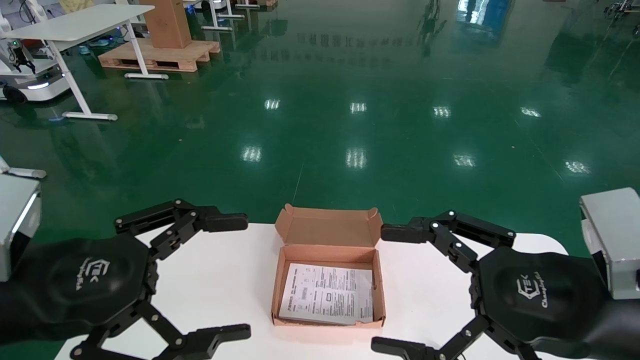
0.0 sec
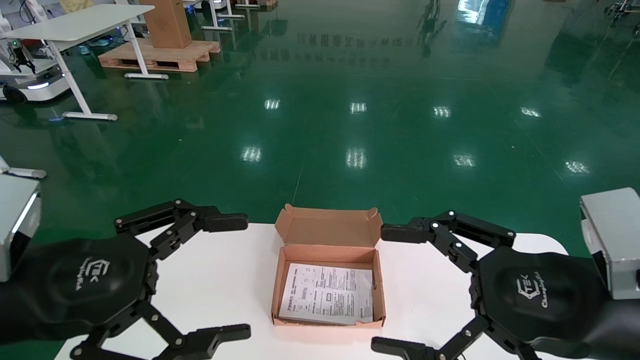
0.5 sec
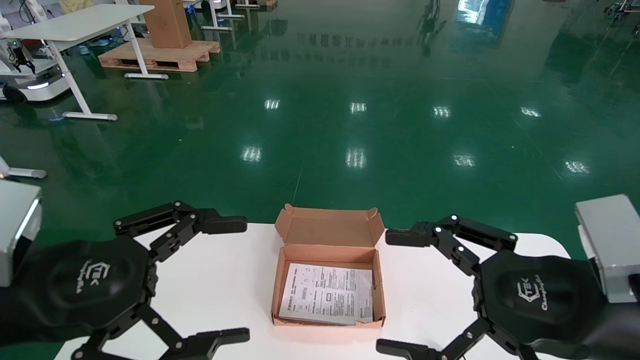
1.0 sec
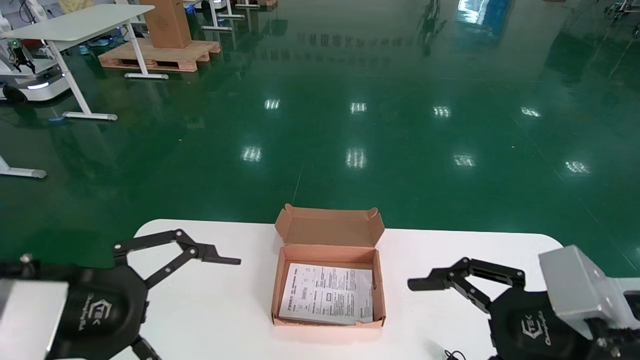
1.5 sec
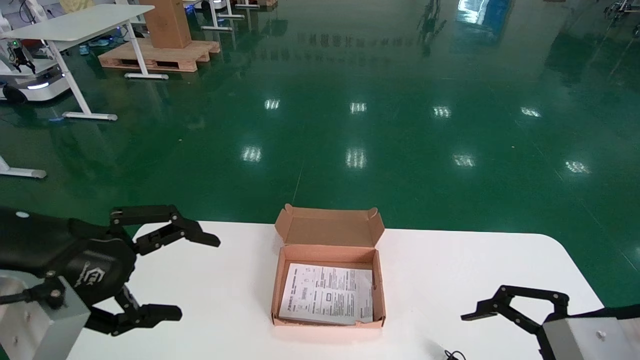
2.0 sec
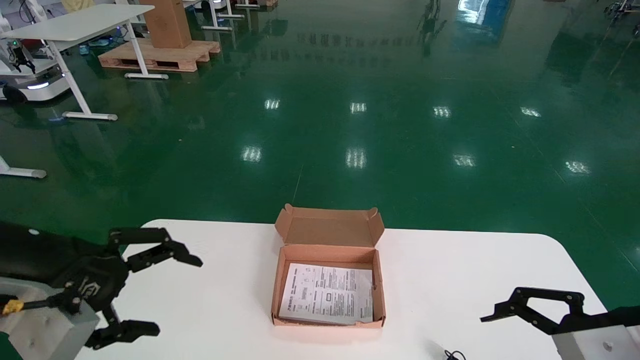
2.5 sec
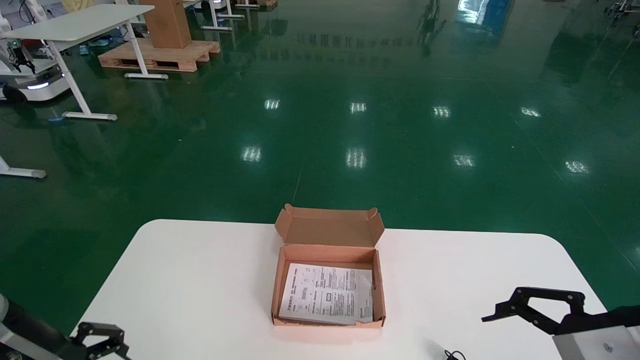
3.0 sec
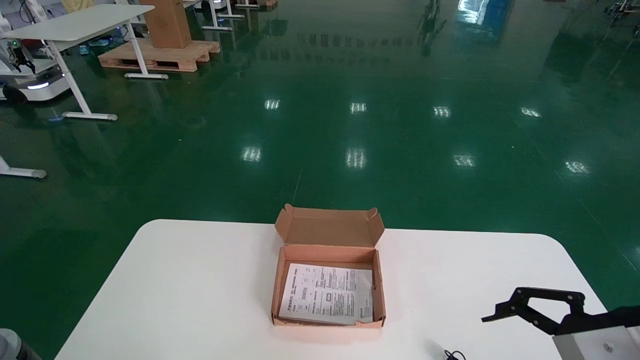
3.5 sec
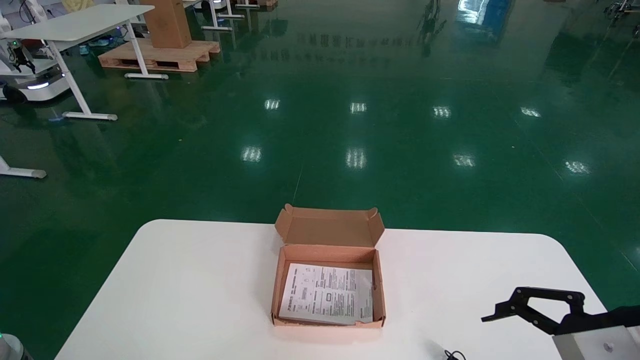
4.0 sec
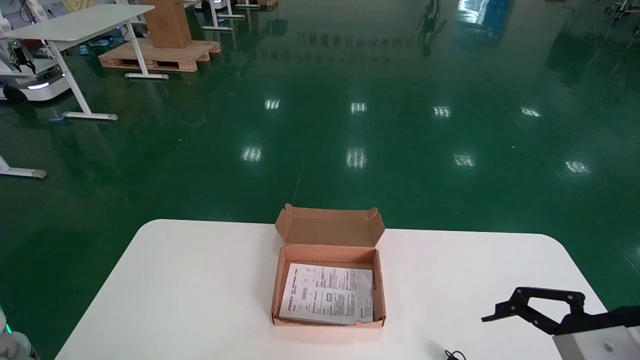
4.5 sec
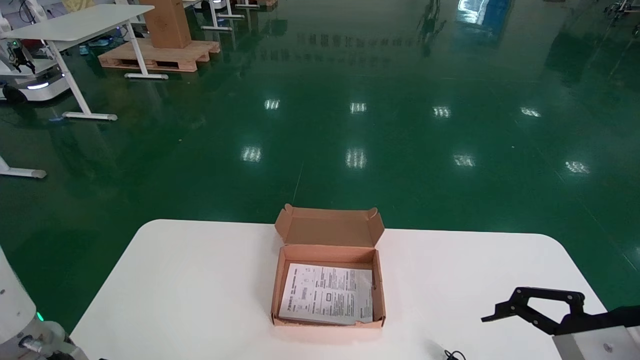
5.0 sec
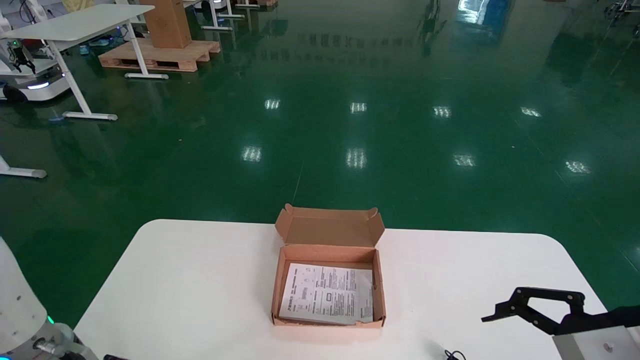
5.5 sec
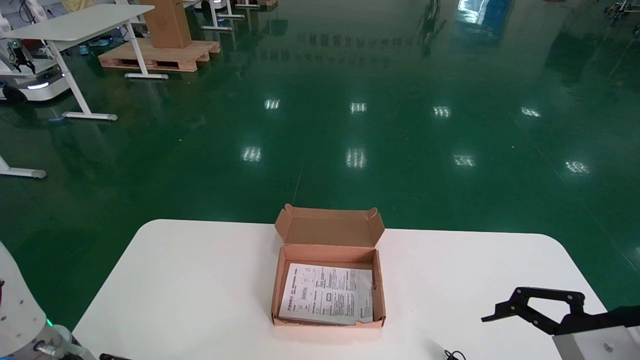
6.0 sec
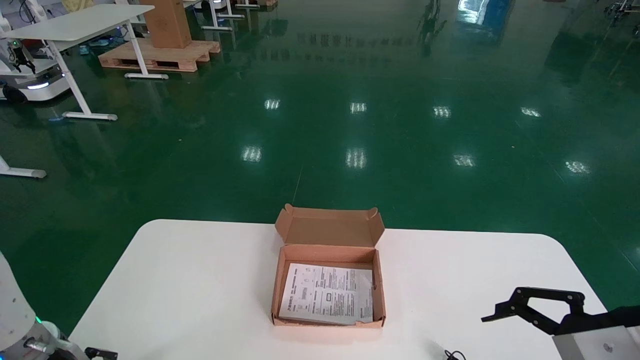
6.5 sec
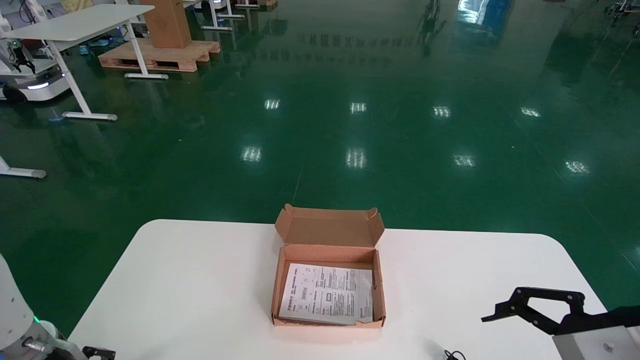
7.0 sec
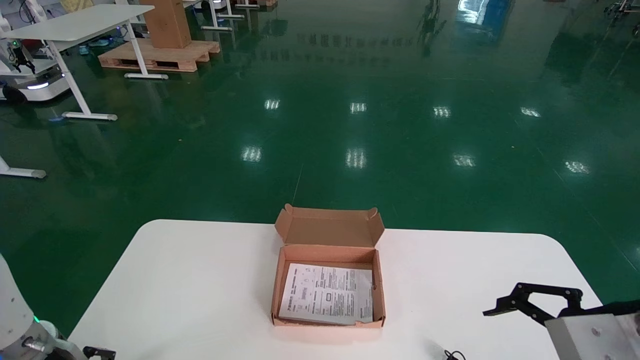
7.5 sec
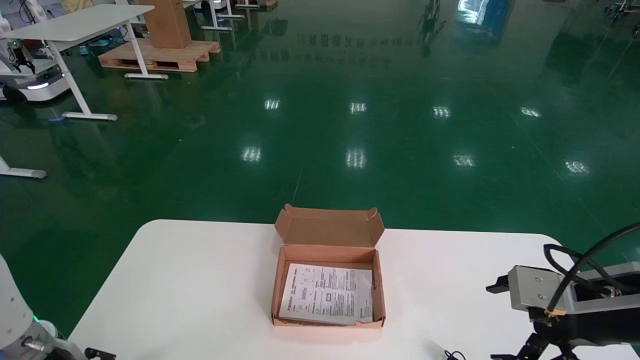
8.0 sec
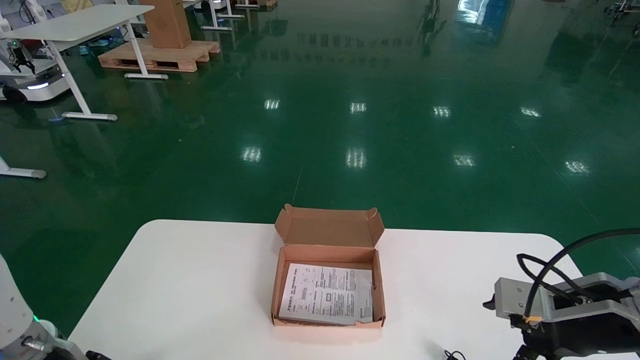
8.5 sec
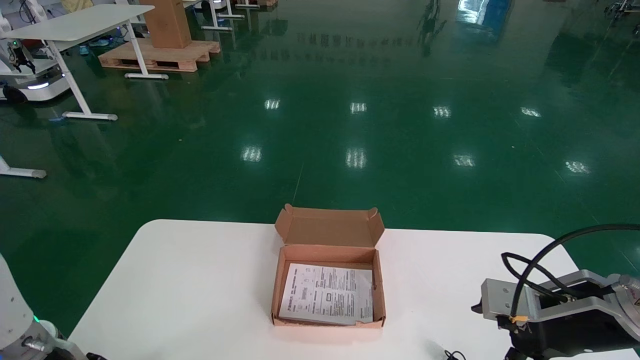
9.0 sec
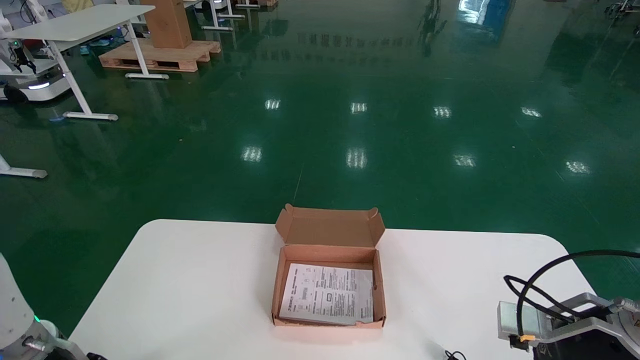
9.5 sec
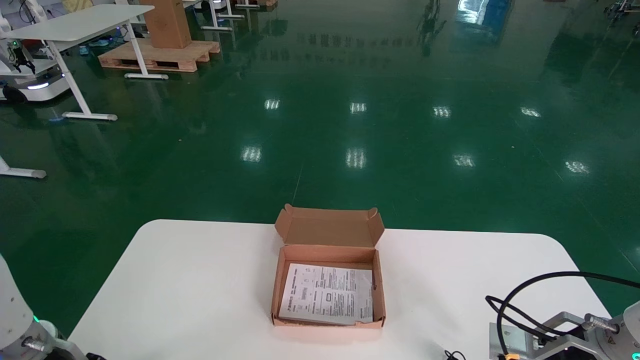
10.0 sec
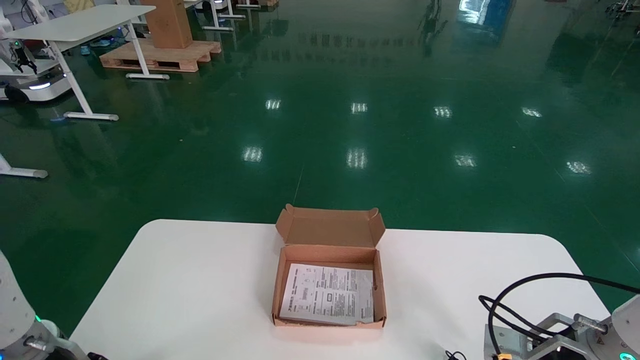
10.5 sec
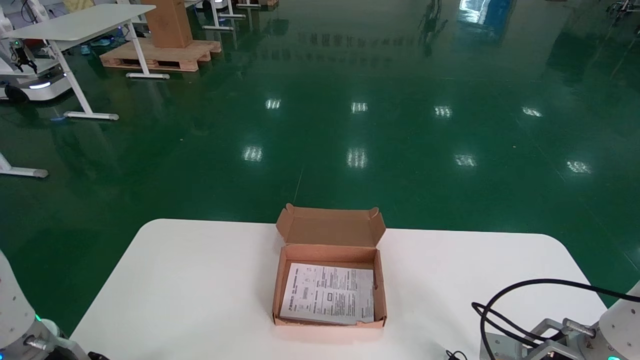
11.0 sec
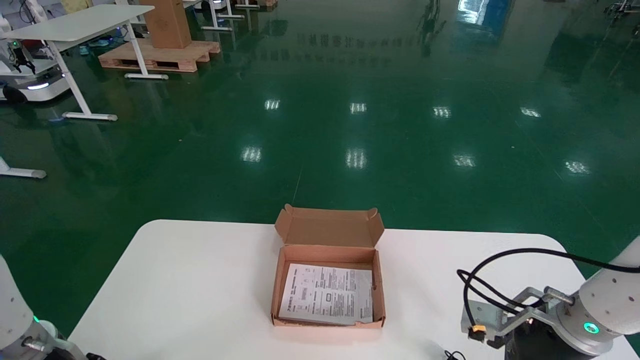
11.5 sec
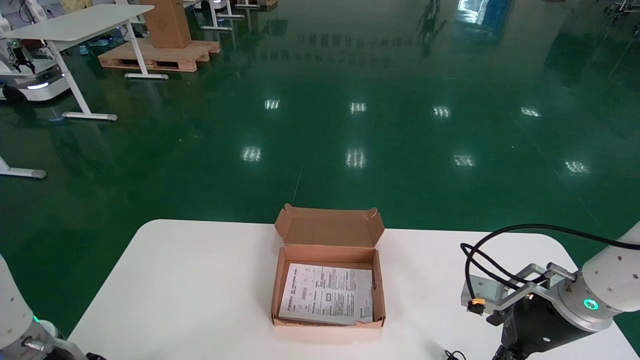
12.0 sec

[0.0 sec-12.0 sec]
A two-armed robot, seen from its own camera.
2.0 sec to 4.0 sec: The left gripper heads downward, covering roughly 15 cm.
4.0 sec to 6.0 sec: The left gripper shifts by some 5 cm.
6.0 sec to 8.0 sec: The left gripper ends up about 5 cm from where it was.
8.0 sec to 10.0 sec: The right gripper is displaced forward and downward by roughly 15 cm; the left gripper closes its fingers.
10.0 sec to 12.0 sec: The grippers stay close to where they were, moving slightly.

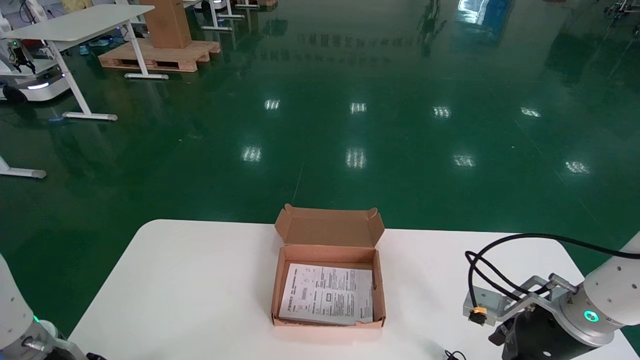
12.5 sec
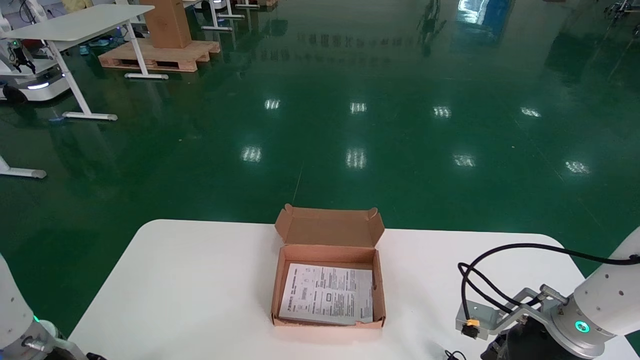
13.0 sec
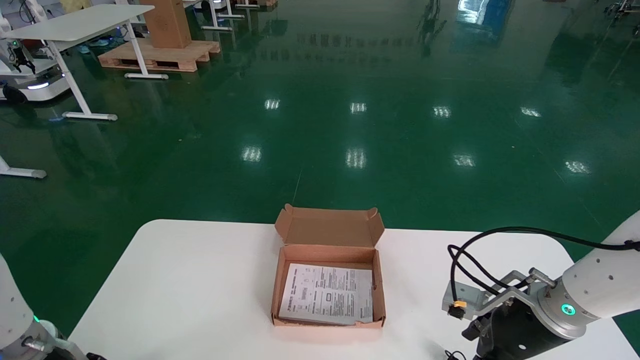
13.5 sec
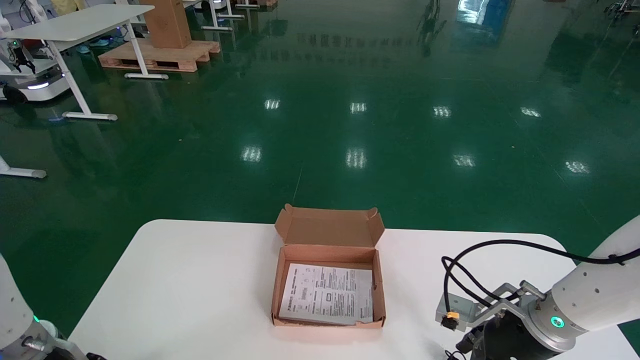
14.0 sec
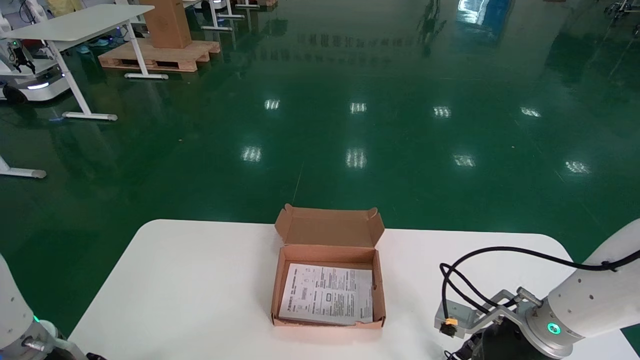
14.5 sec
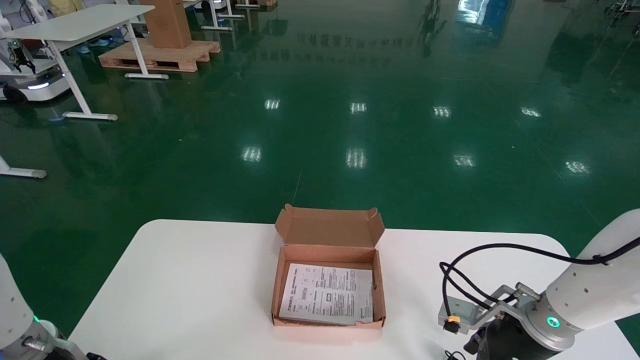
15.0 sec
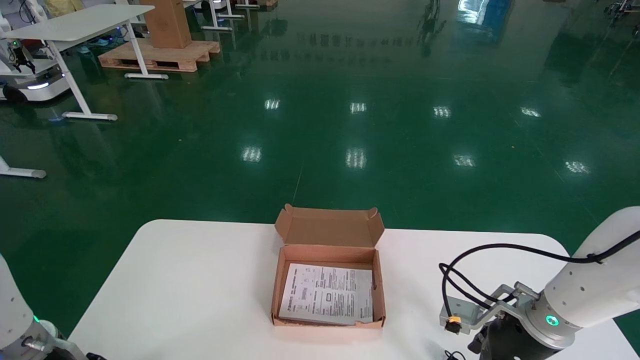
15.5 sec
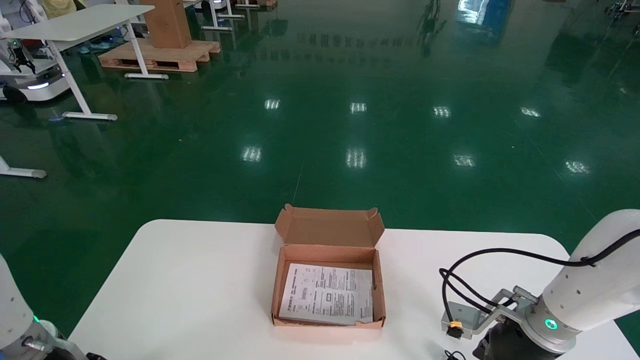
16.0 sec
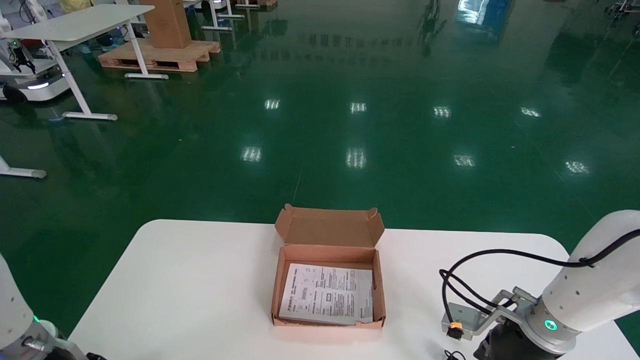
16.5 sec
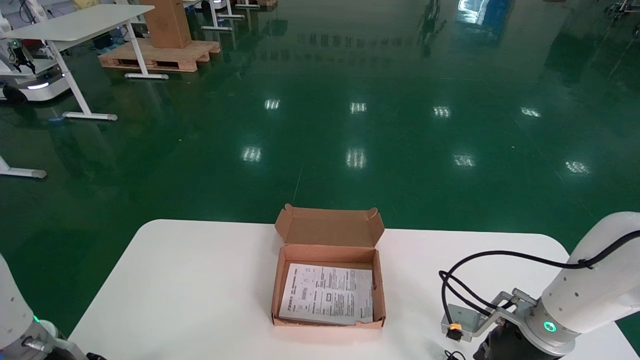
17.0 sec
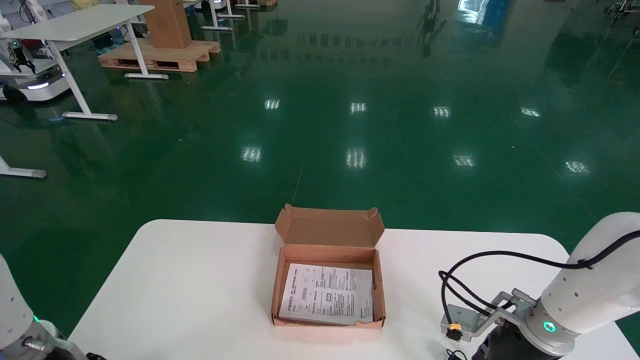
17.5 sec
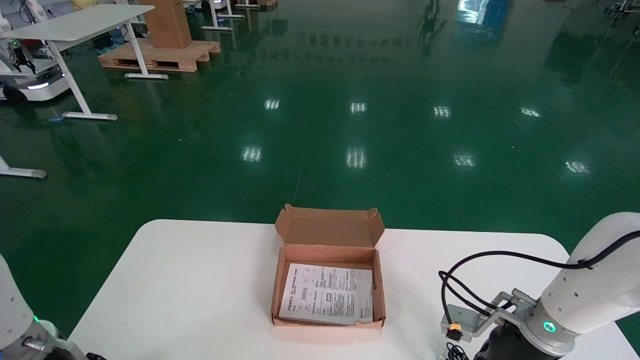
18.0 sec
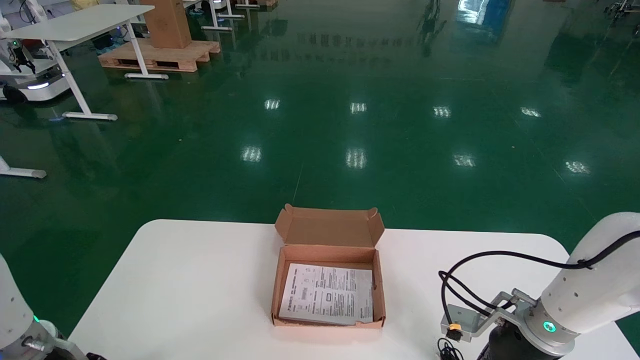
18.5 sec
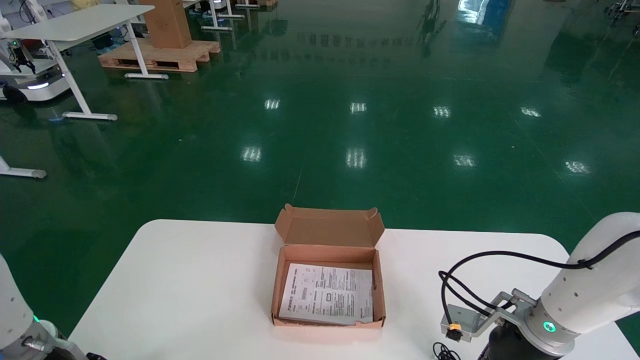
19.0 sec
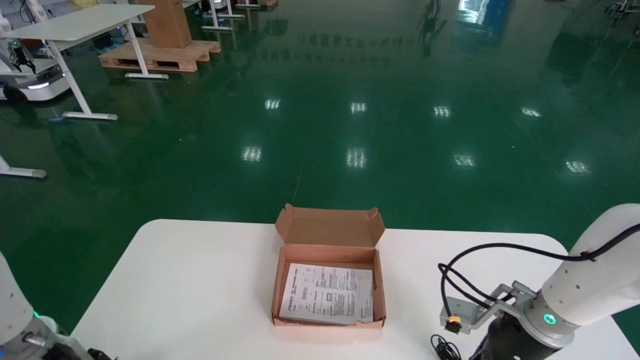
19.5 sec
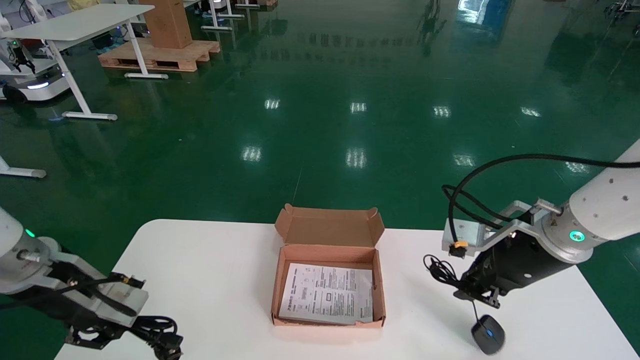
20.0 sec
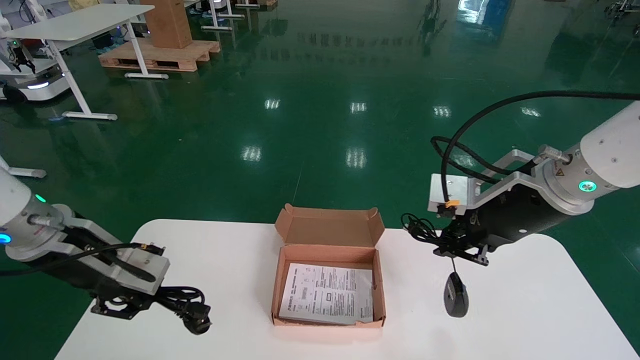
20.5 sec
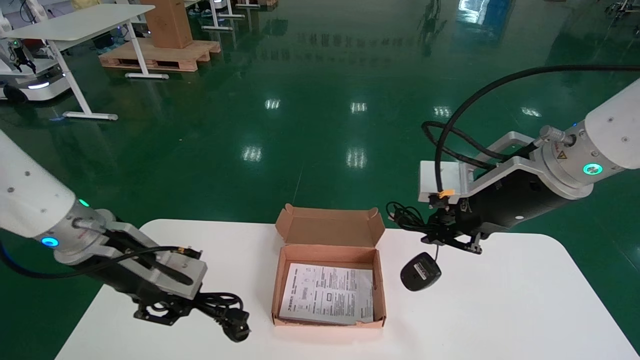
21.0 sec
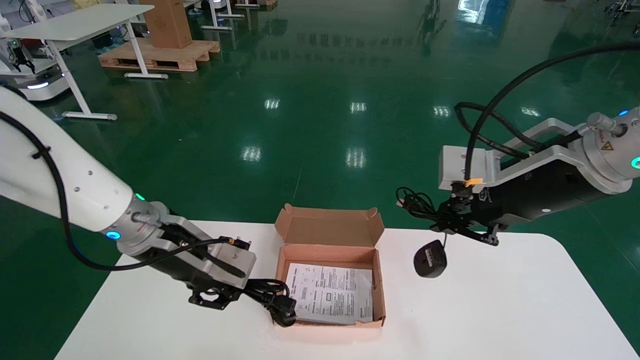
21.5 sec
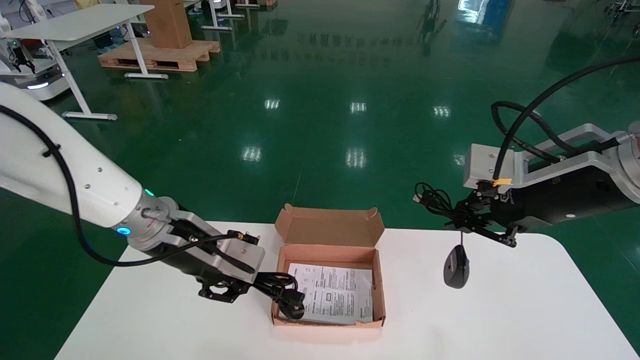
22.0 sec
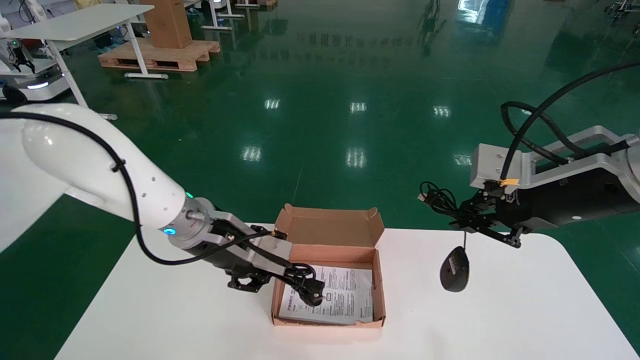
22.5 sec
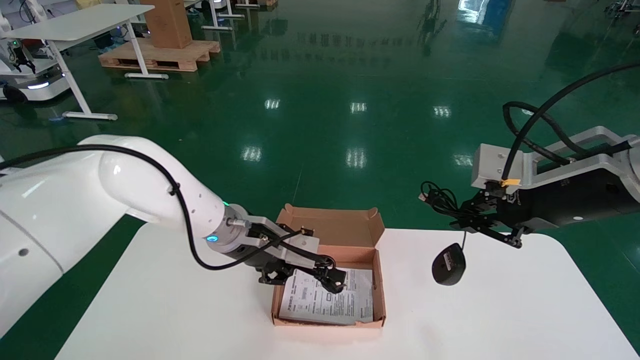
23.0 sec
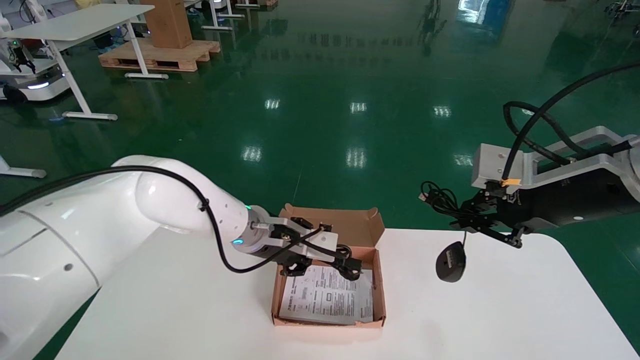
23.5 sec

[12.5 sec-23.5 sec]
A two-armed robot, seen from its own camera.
Step, 12.5 sec to 20.5 sec: Grab and pick up the mouse and power cord from the accessory packaging area.
12.5 sec to 16.0 sec: The grippers stay close to where they were, moving slightly.
16.0 sec to 18.0 sec: Neither gripper changes place.
18.0 sec to 20.0 sec: The right gripper closes up.
20.0 sec to 21.5 sec: The left gripper moves upward and to the right, roughly 15 cm, while the right gripper moves upward, some 20 cm.
21.5 sec to 23.5 sec: The right gripper is displaced to the right by some 5 cm, while the left gripper heads to the right and forward, covering about 15 cm.
